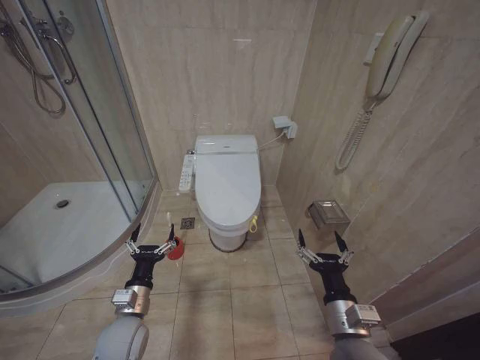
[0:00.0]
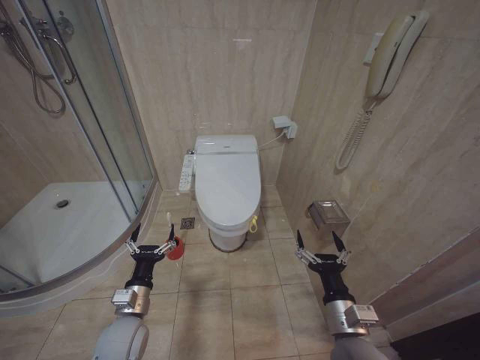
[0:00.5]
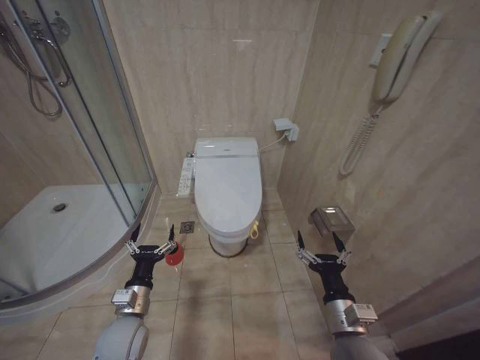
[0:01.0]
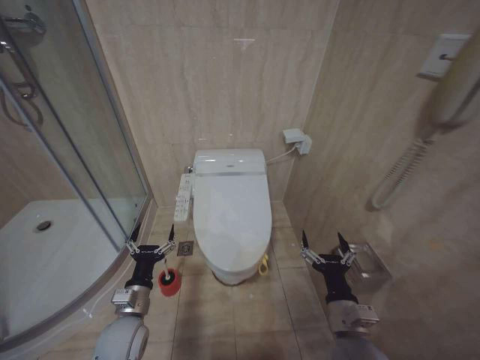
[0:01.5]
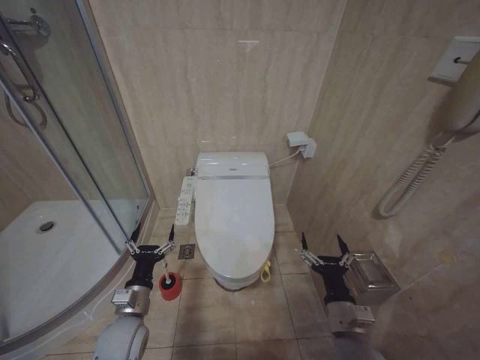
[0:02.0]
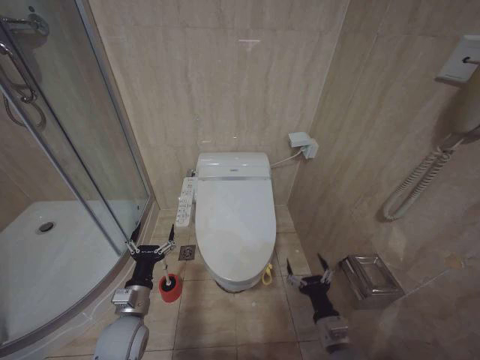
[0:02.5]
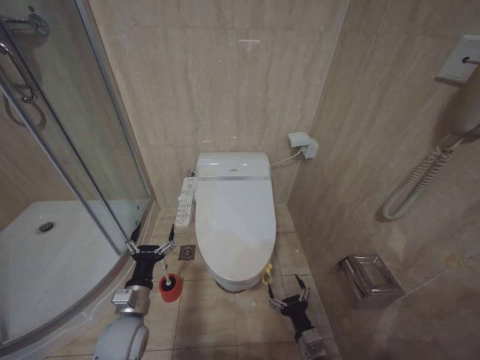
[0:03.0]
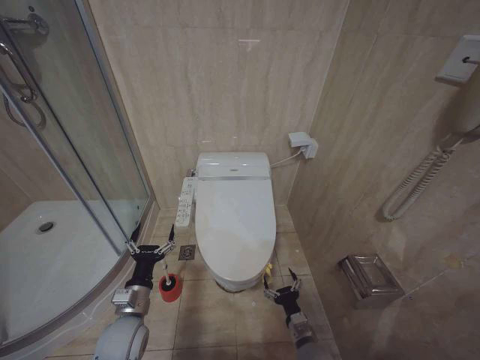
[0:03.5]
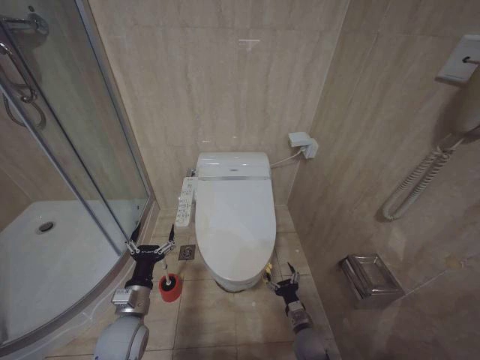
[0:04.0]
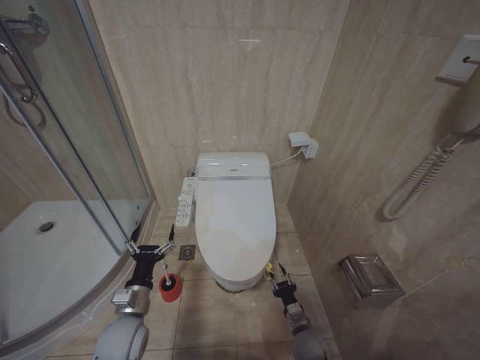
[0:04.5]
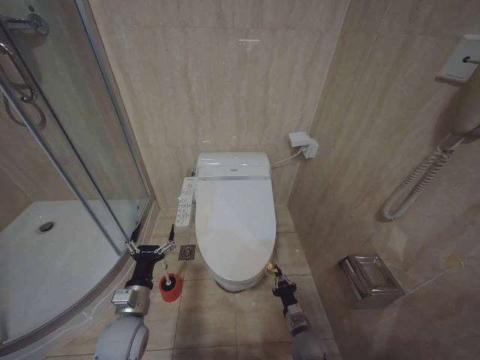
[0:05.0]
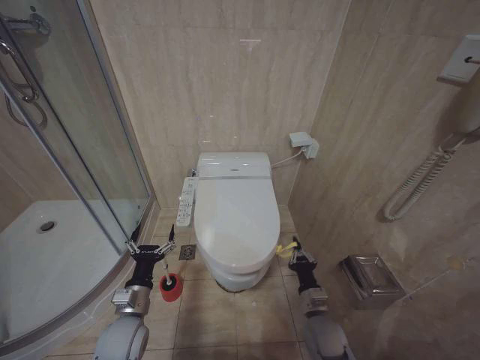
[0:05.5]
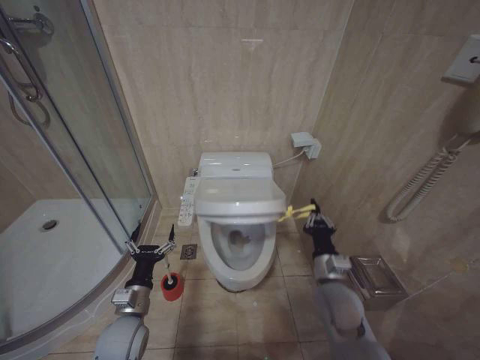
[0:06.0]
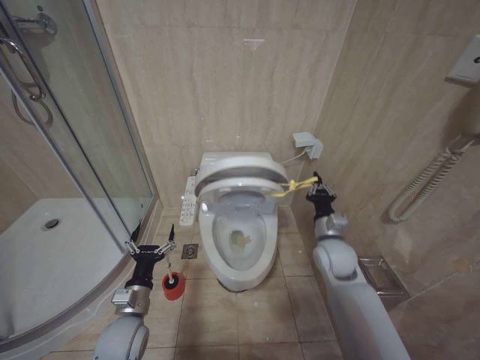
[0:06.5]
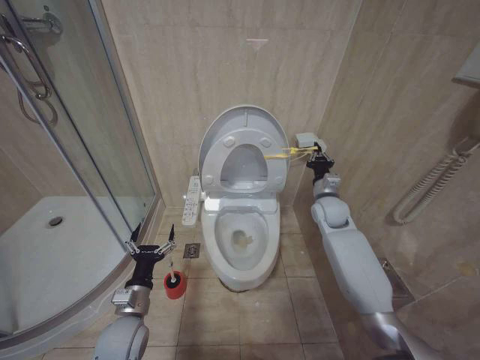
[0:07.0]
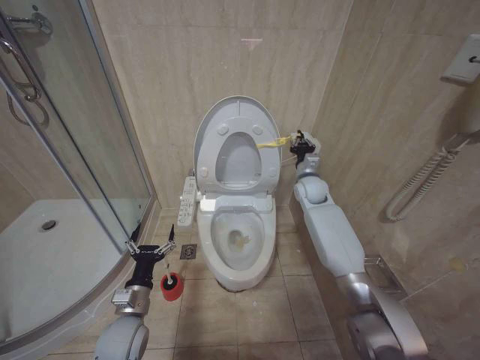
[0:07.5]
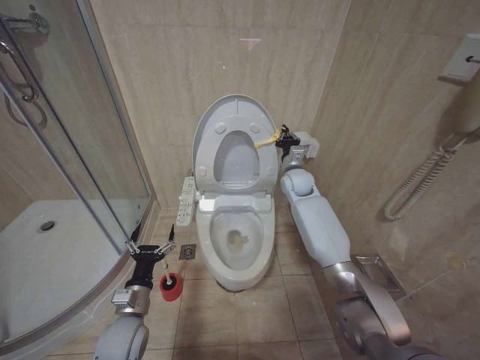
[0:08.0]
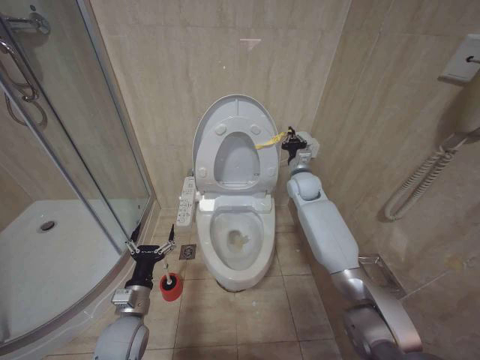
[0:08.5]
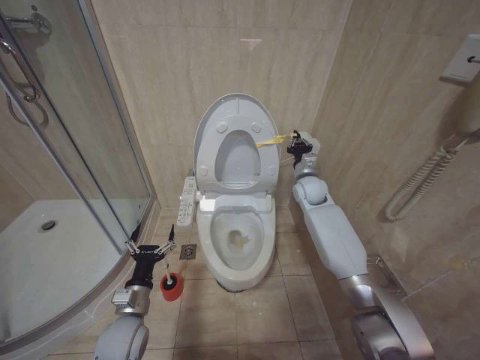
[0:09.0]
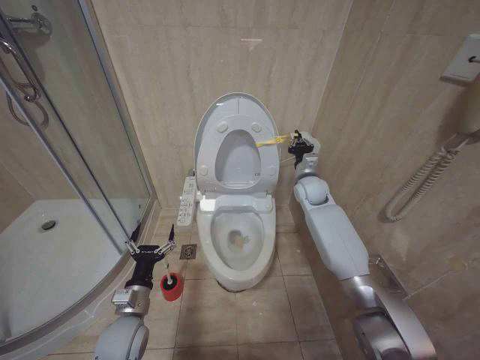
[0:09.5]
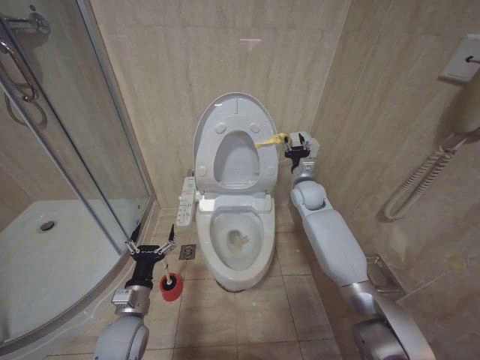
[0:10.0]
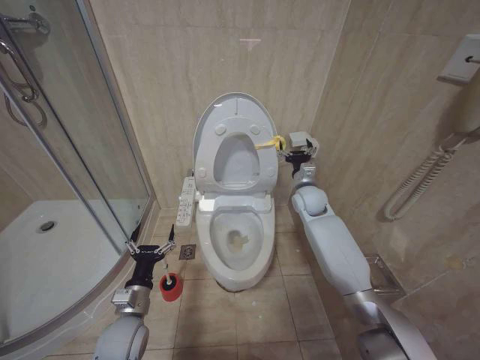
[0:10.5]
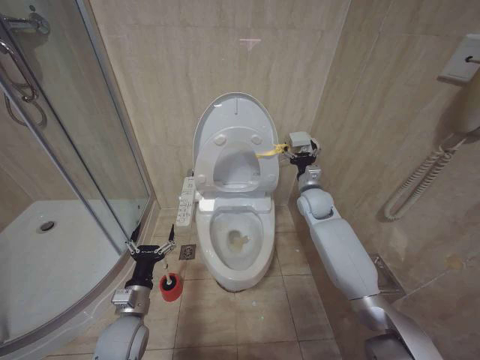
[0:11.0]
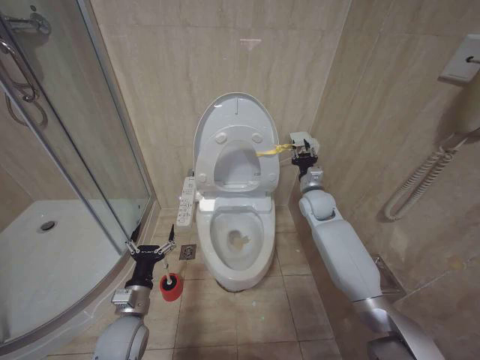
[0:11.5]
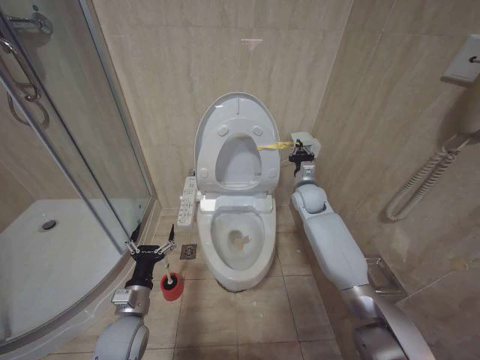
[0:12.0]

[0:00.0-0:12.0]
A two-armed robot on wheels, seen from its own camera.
Task of the whole recording: Open the toilet lid, clean the toilet bowl with a toilet brush, close the toilet lid, and flush.
0:02.0 to 0:04.0: The right gripper heads downward, covering about 20 cm.
0:04.0 to 0:06.0: The right gripper travels upward by some 20 cm, and closes its fingers.
0:06.0 to 0:08.0: The right gripper is displaced forward and upward by approximately 35 cm.
0:08.0 to 0:10.0: The right gripper opens up.
0:10.0 to 0:12.0: The right gripper opens, then closes again.

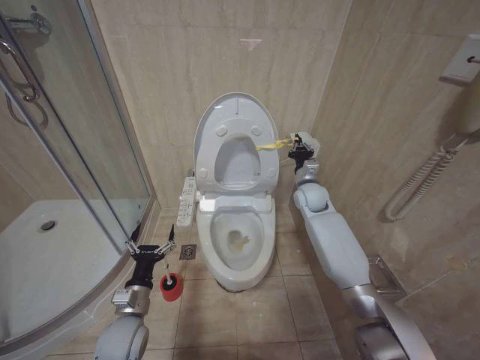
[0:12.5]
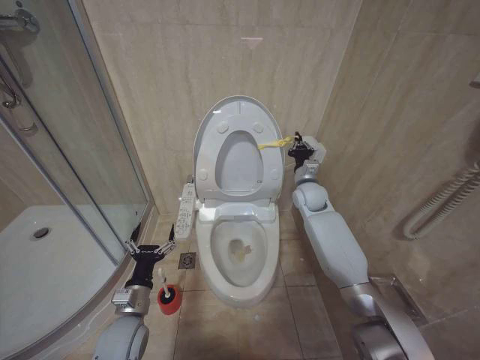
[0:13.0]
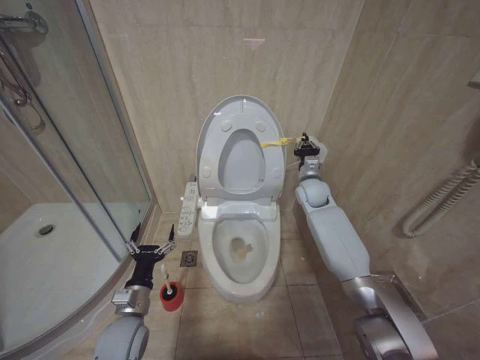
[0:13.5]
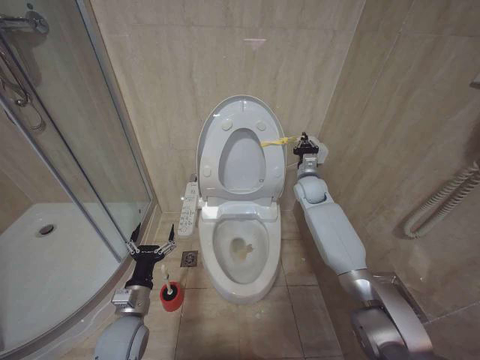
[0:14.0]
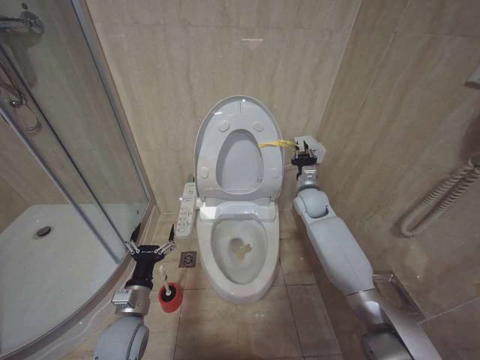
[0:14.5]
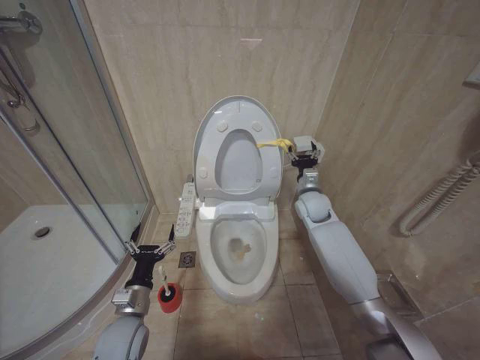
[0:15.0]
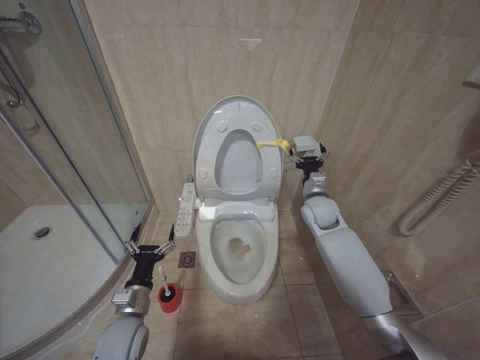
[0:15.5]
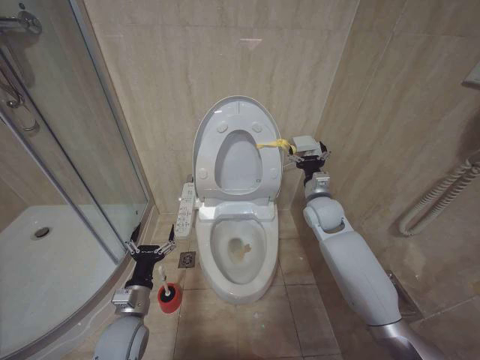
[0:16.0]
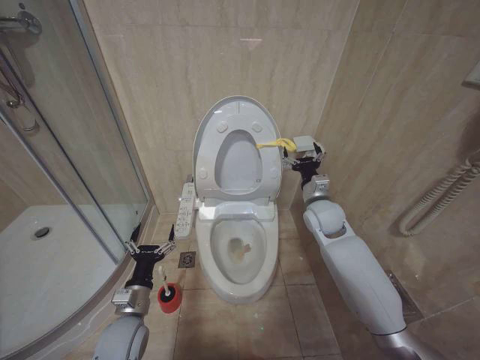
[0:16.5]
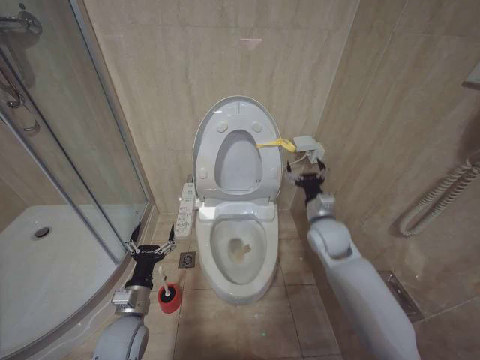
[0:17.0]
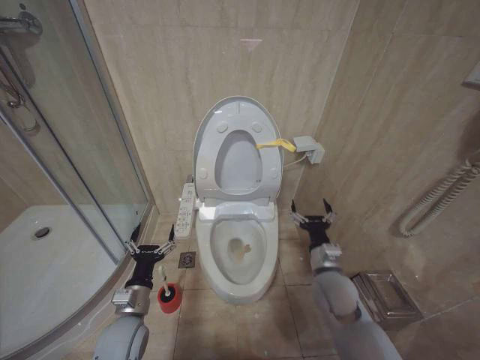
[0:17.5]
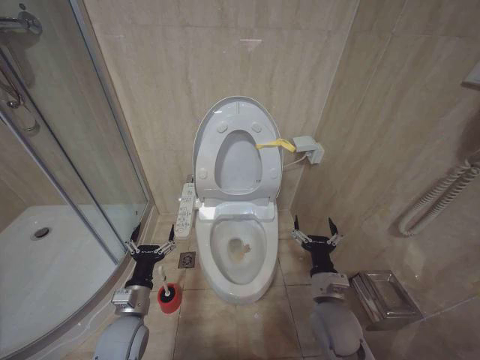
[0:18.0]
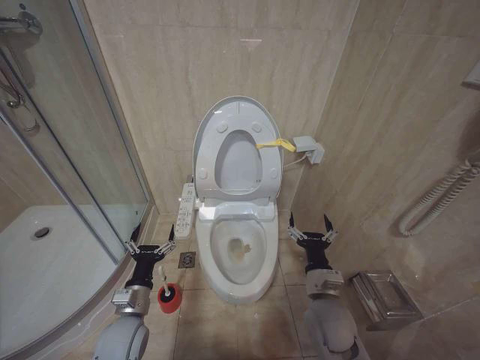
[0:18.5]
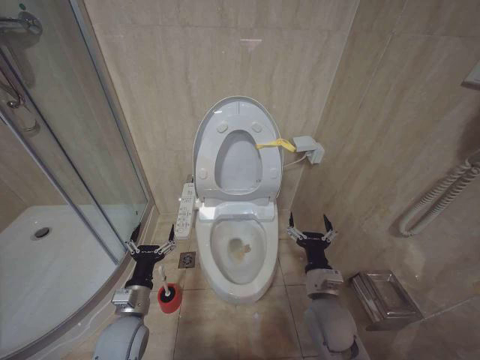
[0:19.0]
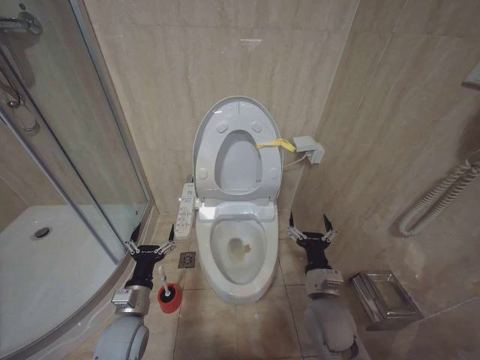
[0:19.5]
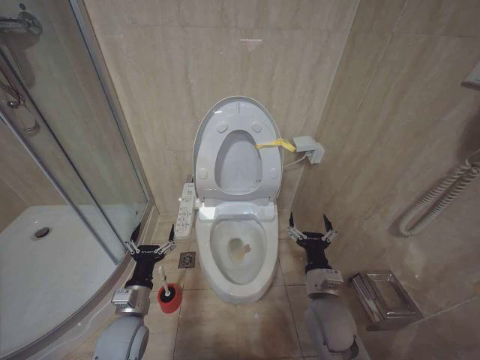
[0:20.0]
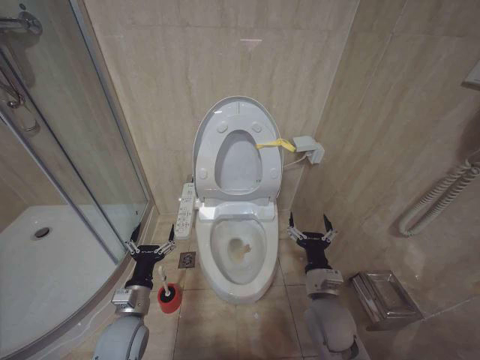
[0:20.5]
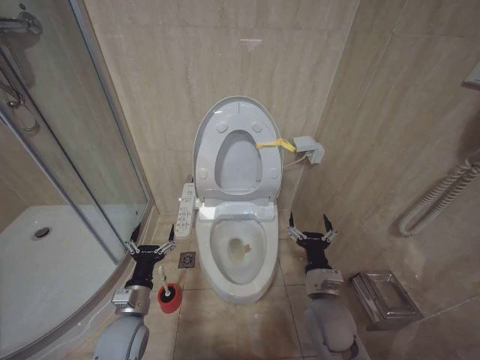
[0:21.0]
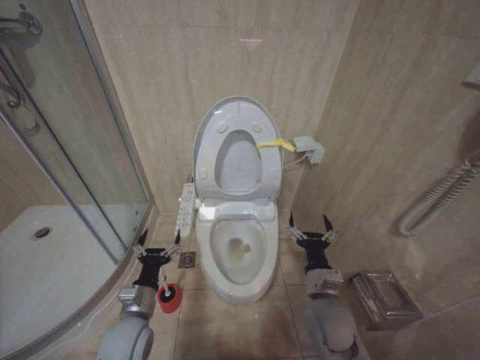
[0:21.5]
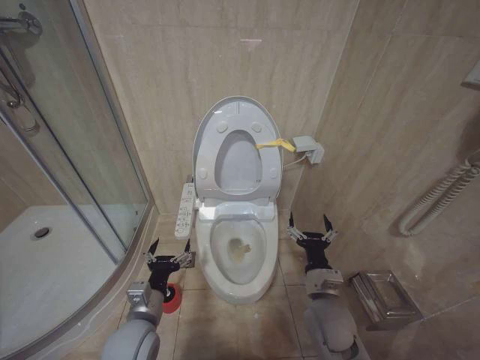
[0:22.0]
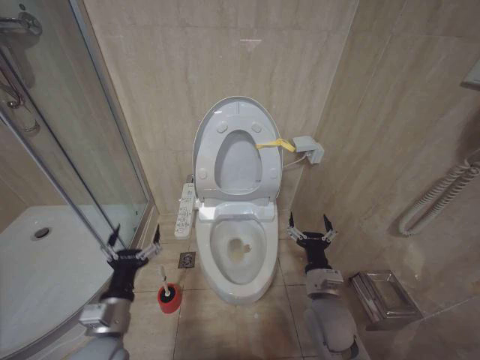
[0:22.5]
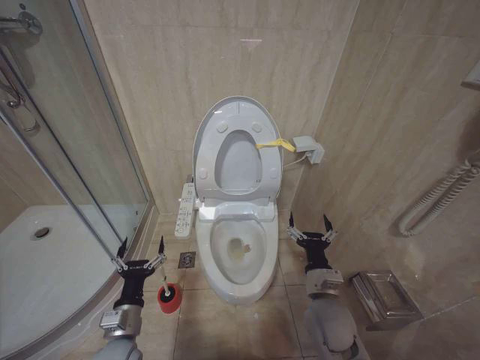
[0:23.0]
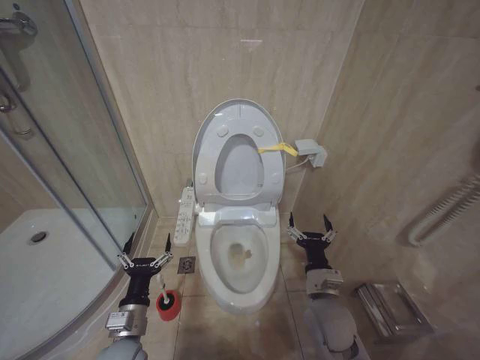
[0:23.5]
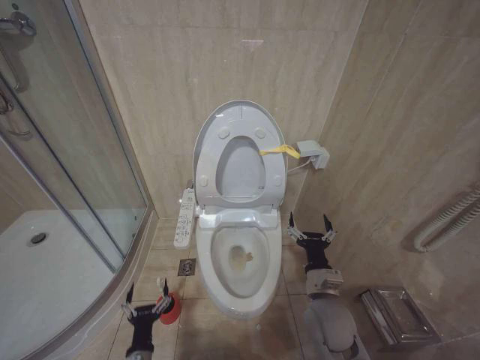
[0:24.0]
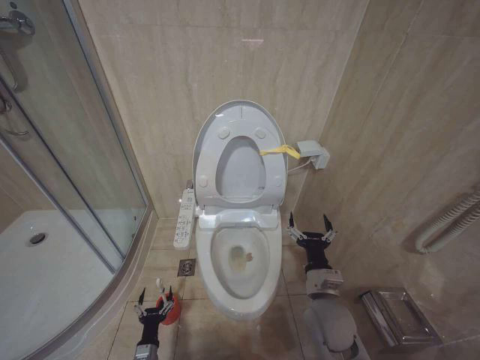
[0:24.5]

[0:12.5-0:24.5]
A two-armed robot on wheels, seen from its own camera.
Task of the whole recording: Open the toilet lid, clean the toilet bowl with a toilet brush, close the toilet lid, and flush.
0:12.5 to 0:14.5: There are only small adjustments of the grippers.
0:14.5 to 0:16.5: The right gripper heads backward, covering some 10 cm, and opens its fingers.
0:16.5 to 0:18.5: The right gripper goes approximately 25 cm backward and downward.
0:18.5 to 0:20.5: The two grippers keep their place.
0:20.5 to 0:22.5: The left gripper goes some 10 cm upward and backward.
0:22.5 to 0:24.5: The left gripper is displaced downward by approximately 30 cm.

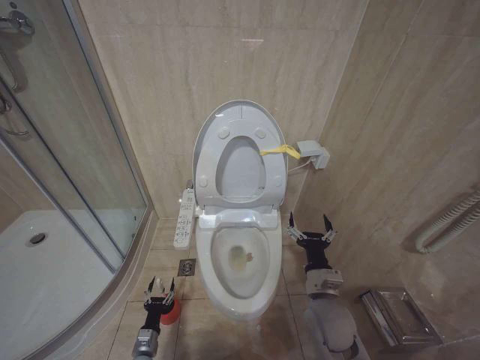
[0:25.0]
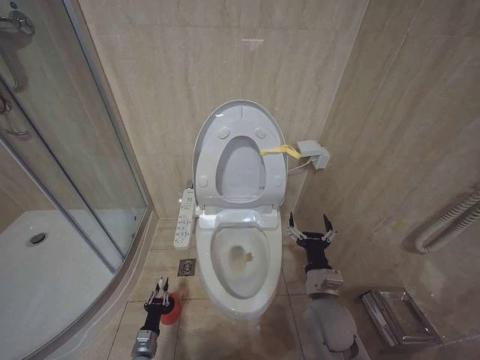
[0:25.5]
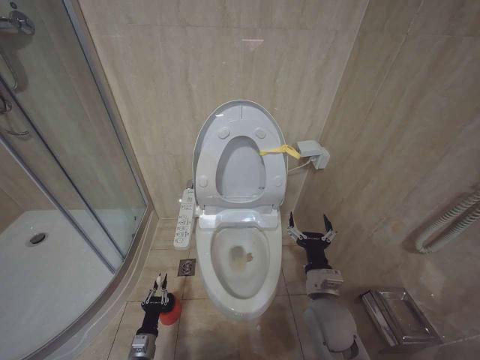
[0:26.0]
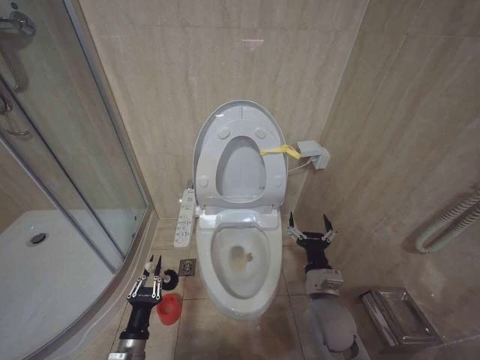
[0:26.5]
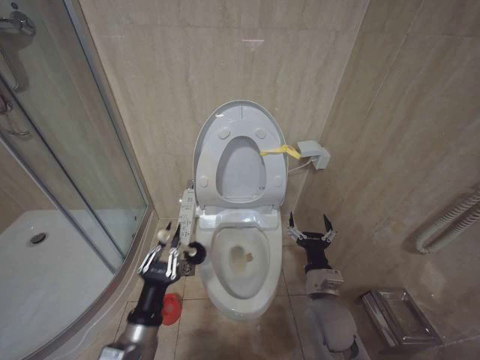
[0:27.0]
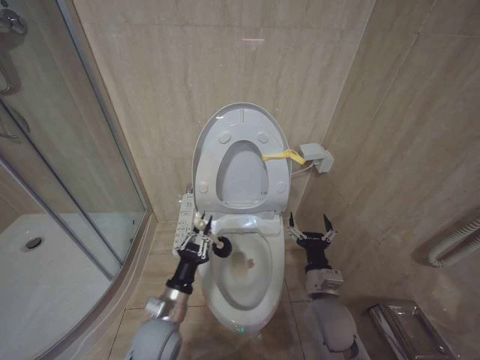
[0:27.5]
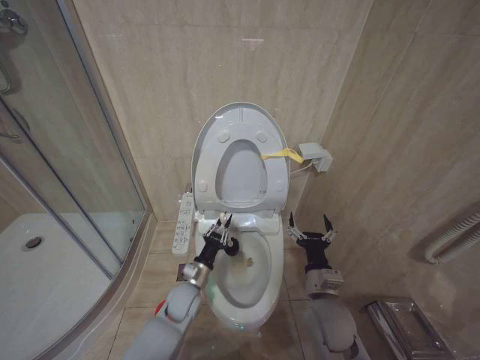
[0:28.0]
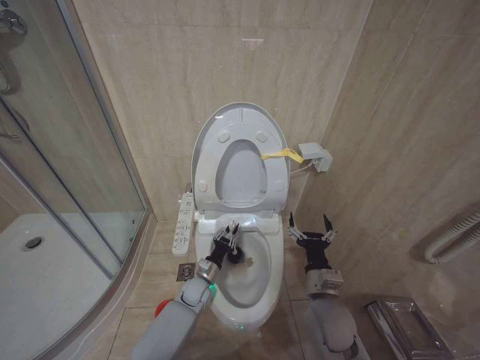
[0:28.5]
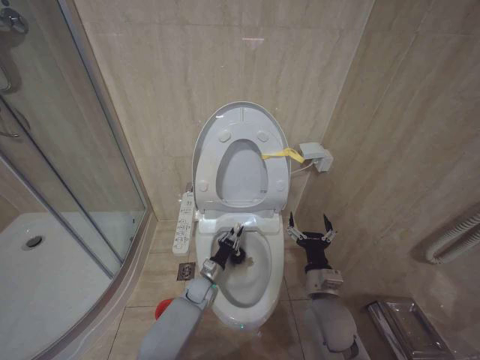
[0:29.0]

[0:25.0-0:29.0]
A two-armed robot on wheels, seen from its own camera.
Task of the whole recording: Open the toilet lid, clean the toilet bowl with a toilet brush, close the toilet lid, and flush.
0:25.0 to 0:27.0: The left gripper goes roughly 30 cm upward, and closes up.
0:27.0 to 0:29.0: The left gripper moves forward and downward, some 35 cm.
